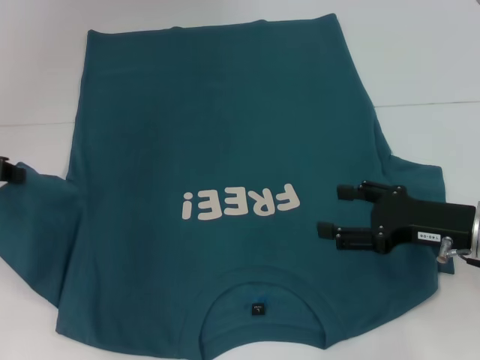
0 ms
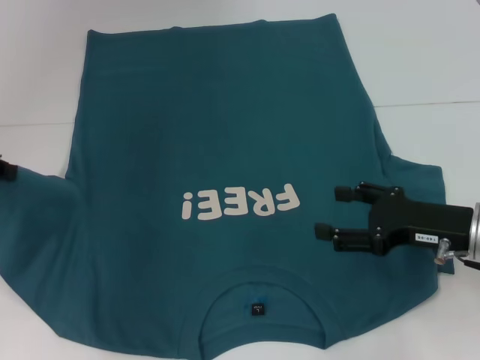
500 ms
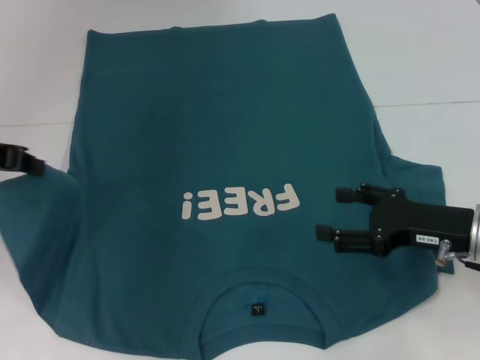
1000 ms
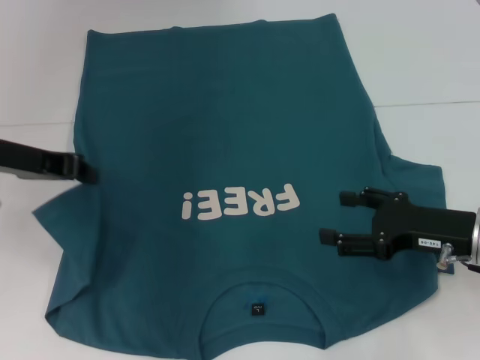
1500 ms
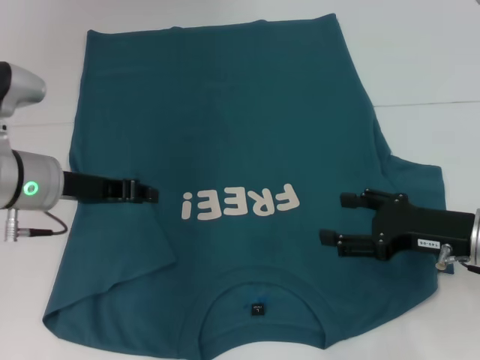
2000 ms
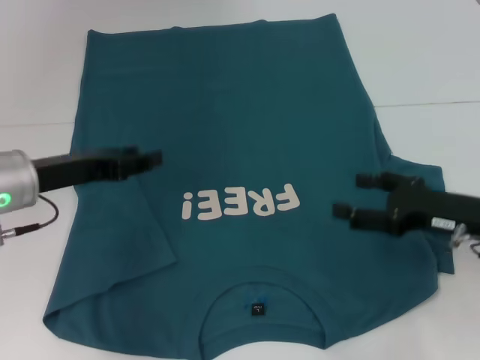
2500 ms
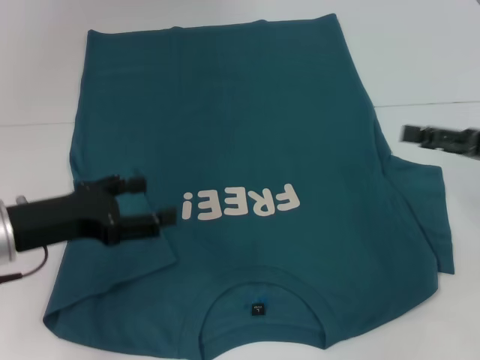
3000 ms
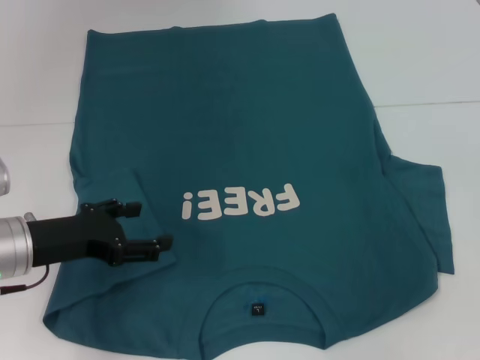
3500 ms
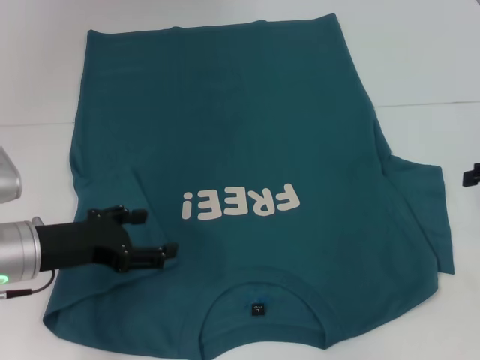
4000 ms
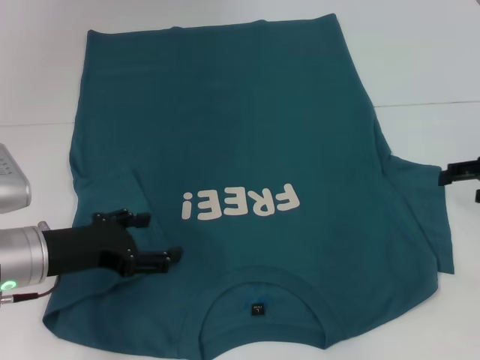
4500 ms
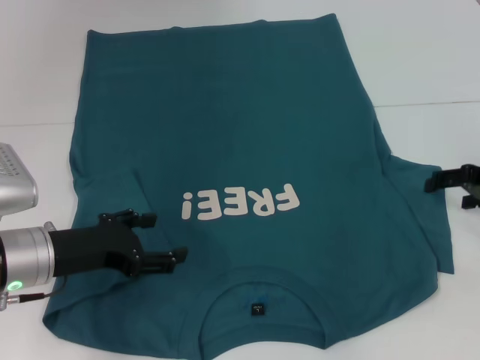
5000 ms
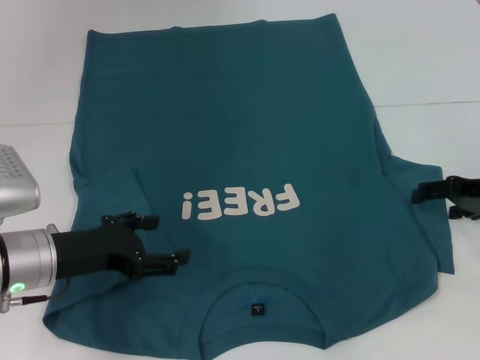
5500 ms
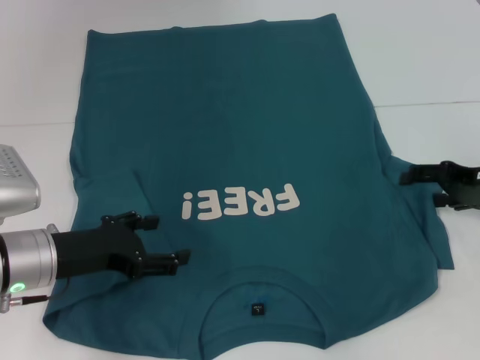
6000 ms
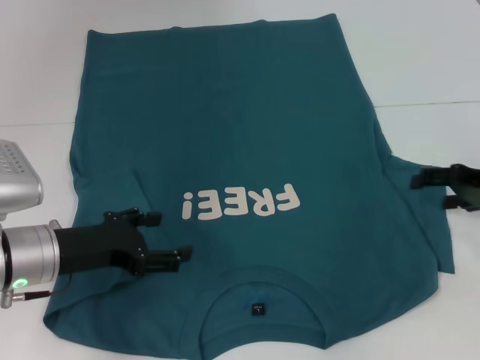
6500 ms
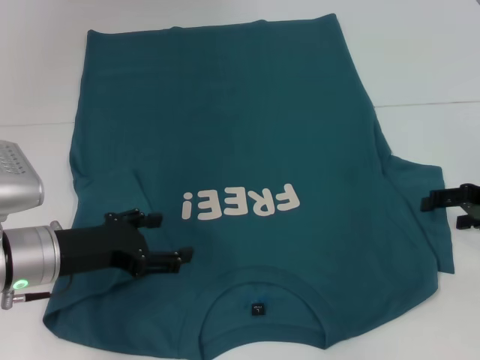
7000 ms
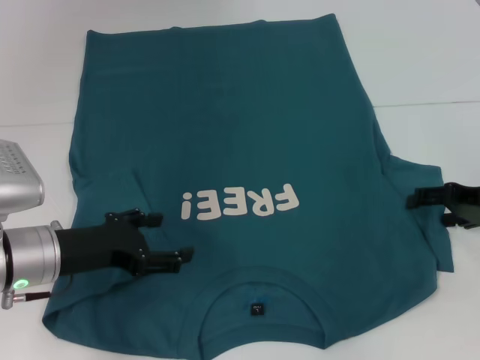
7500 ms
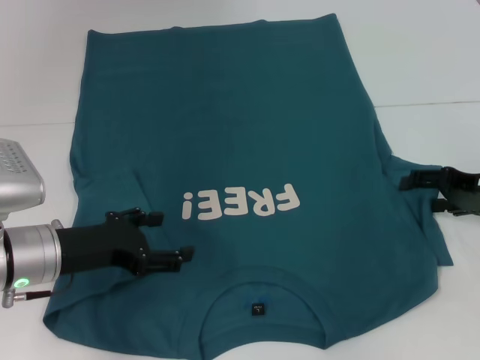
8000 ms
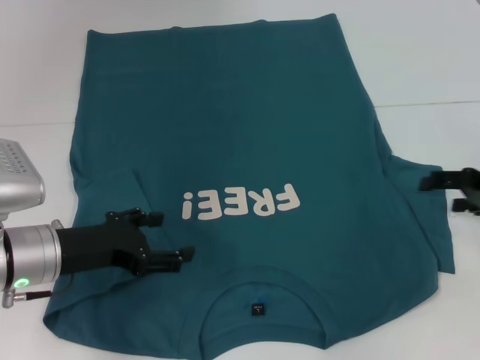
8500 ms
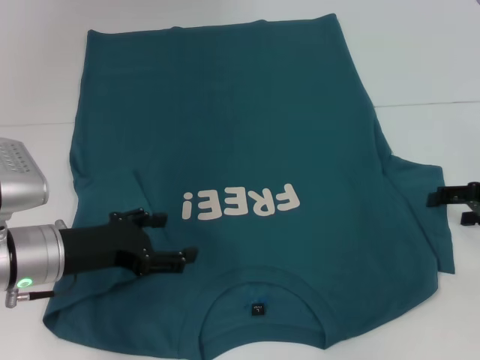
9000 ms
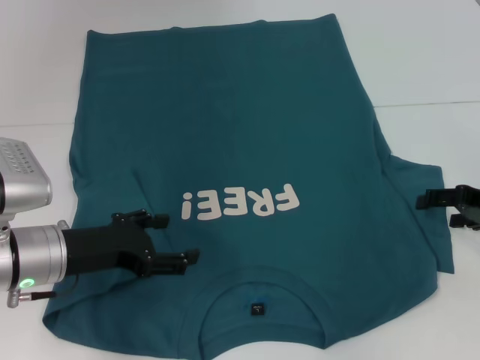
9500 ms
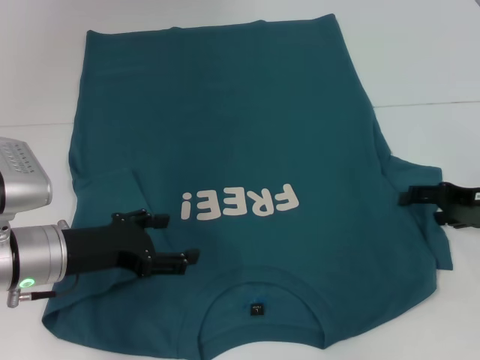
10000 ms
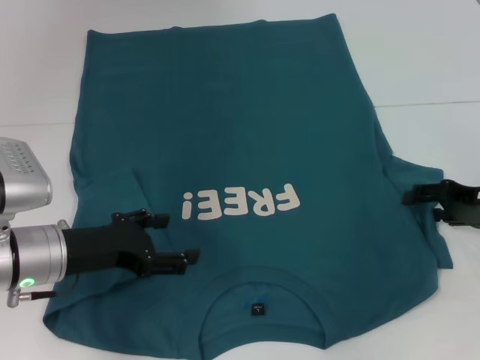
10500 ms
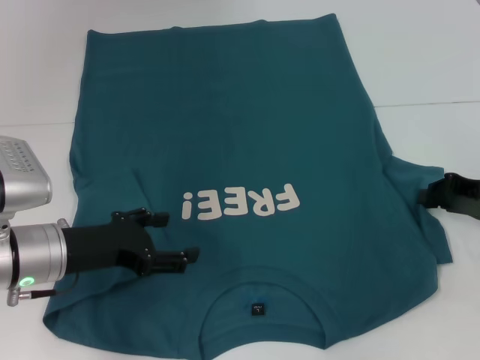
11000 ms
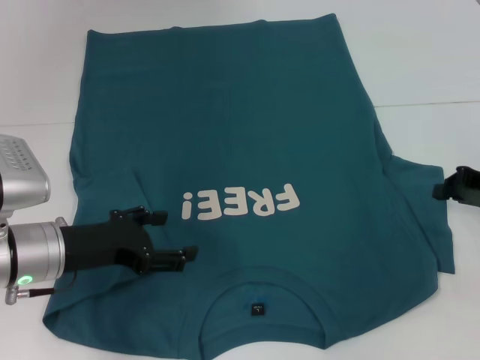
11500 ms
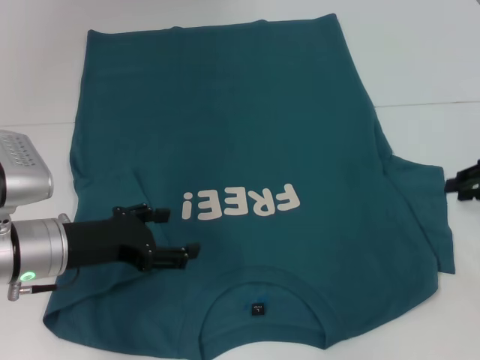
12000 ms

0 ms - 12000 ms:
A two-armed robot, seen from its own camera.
Step, 0 ms - 2000 ms: Fold the bottom left sleeve with your left hand.
0 ms - 2000 ms: The left gripper is displaced to the right and downward by some 10 cm.
2000 ms - 4000 ms: The left gripper is displaced backward by roughly 5 cm, and opens its fingers. Meanwhile the right gripper goes approximately 15 cm to the right and upward.
4000 ms - 6000 ms: The right gripper heads downward and to the left, covering approximately 5 cm.
6000 ms - 10000 ms: The grippers make only small movements.
10000 ms - 12000 ms: The right gripper ends up roughly 5 cm from where it was, and closes up.

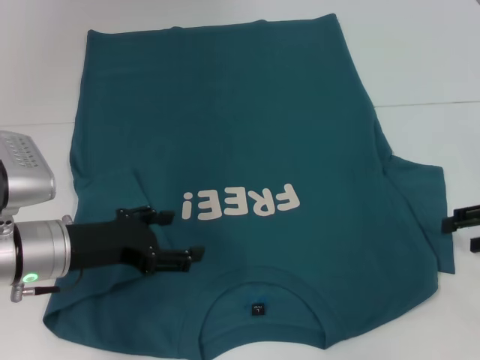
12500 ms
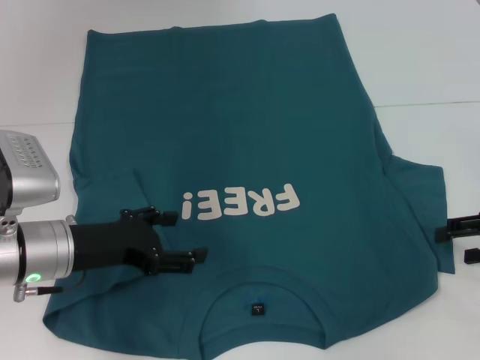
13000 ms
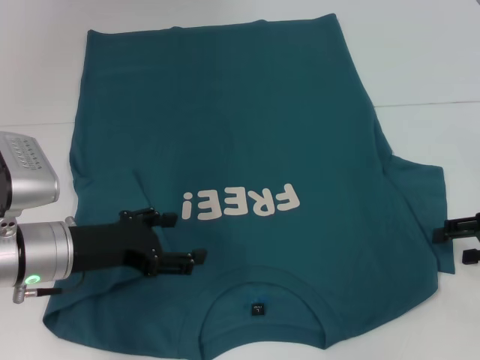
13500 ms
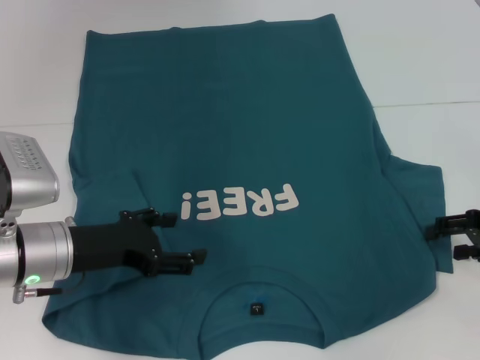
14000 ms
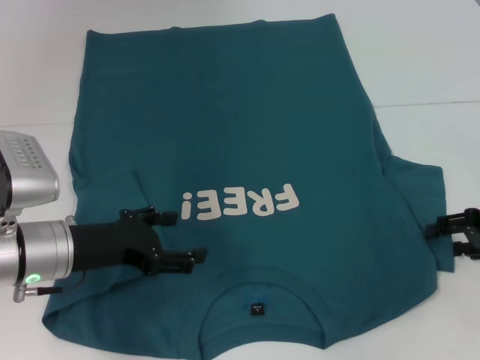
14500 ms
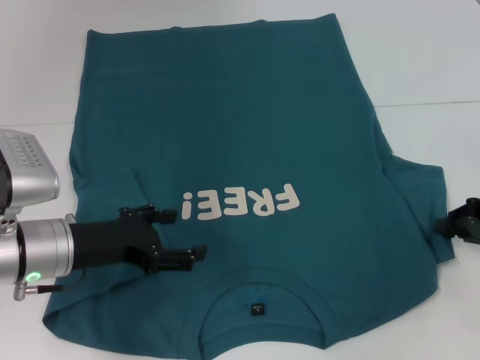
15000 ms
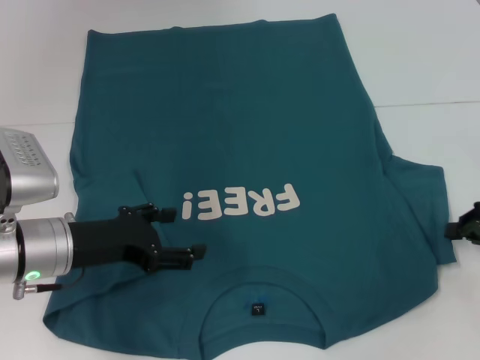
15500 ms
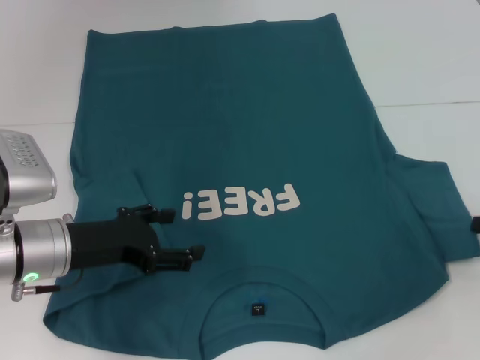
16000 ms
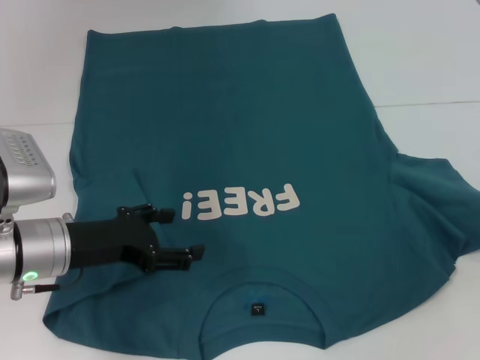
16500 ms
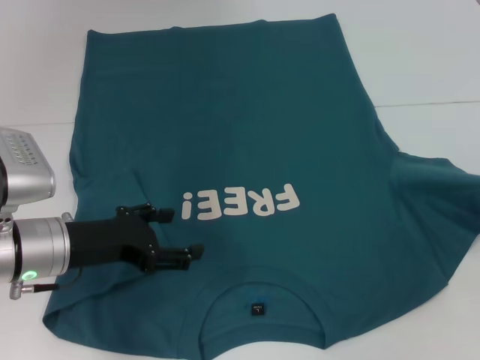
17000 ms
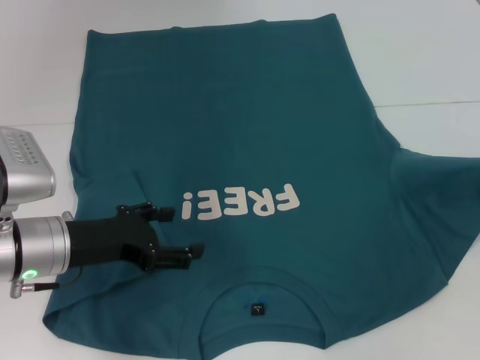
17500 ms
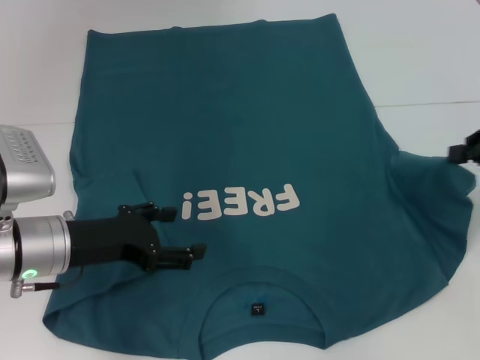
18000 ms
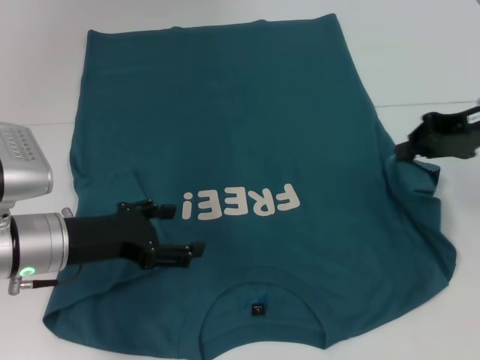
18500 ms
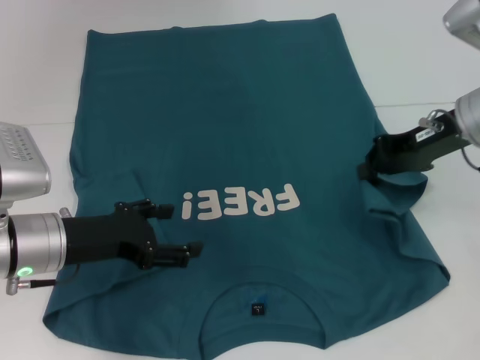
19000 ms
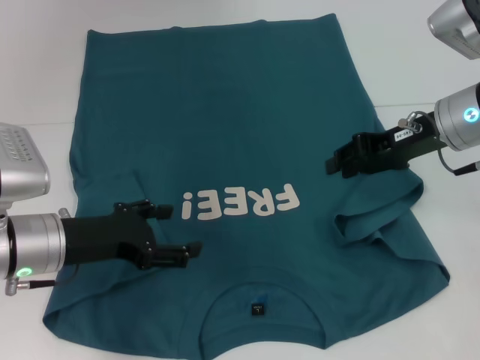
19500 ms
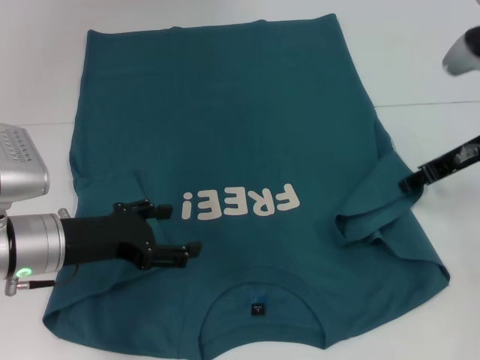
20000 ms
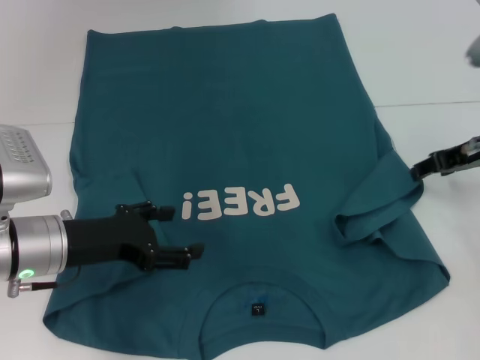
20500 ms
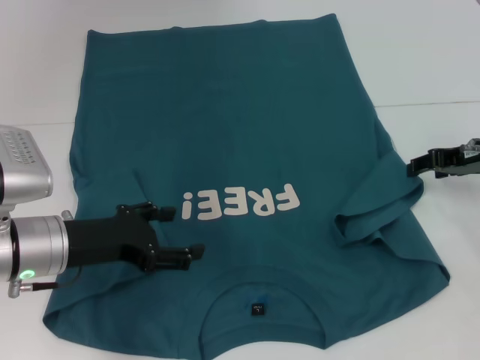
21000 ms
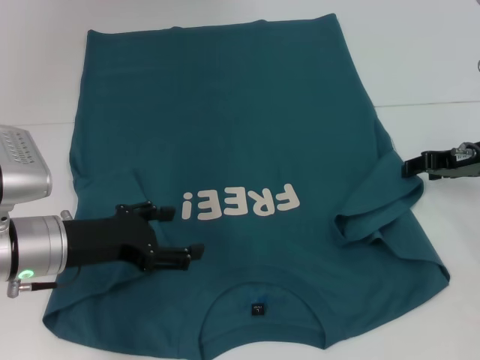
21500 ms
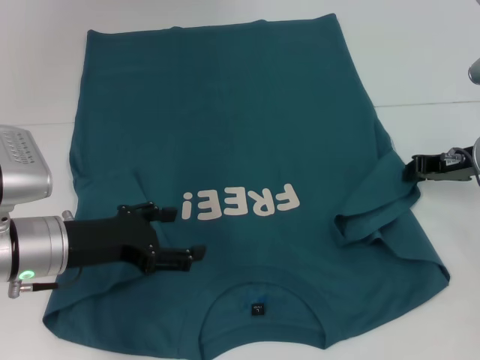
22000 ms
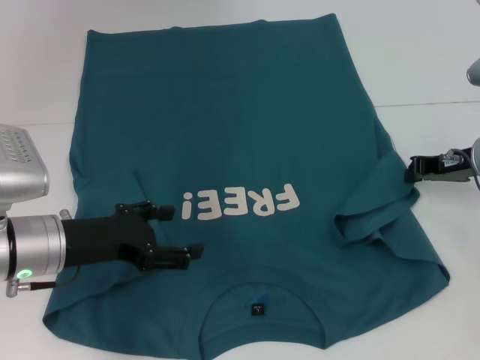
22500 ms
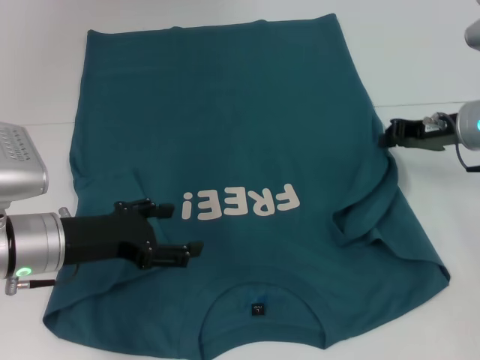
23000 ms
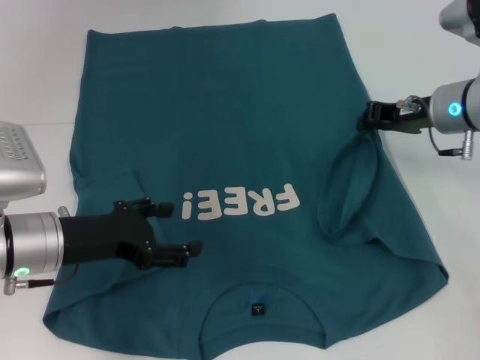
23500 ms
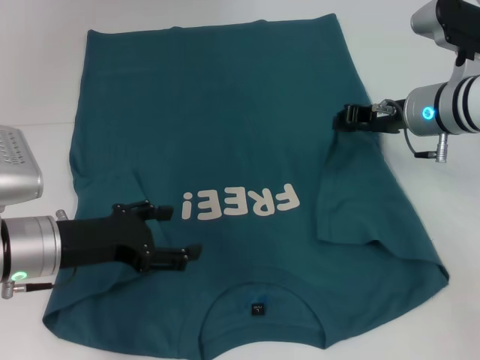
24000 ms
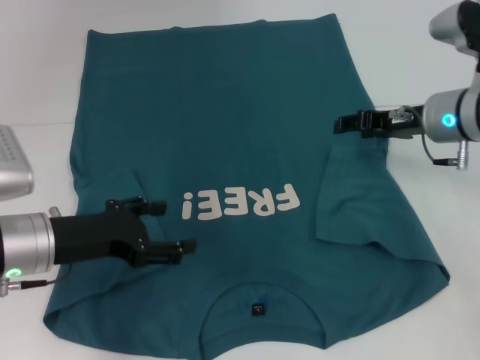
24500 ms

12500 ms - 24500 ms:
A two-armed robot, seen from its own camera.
Step, 12500 ms - 24000 ms: Fold the bottom right sleeve to the right.
12500 ms - 14500 ms: The grippers stay close to where they were, moving slightly.
14500 ms - 16500 ms: The right gripper goes about 5 cm to the right, and closes its fingers.
16500 ms - 18500 ms: The right gripper goes about 15 cm to the left, upward and forward.
18500 ms - 20500 ms: The right gripper opens up.
20500 ms - 22500 ms: The right gripper closes up.
22500 ms - 24500 ms: The right gripper goes approximately 5 cm to the left, and opens its fingers.

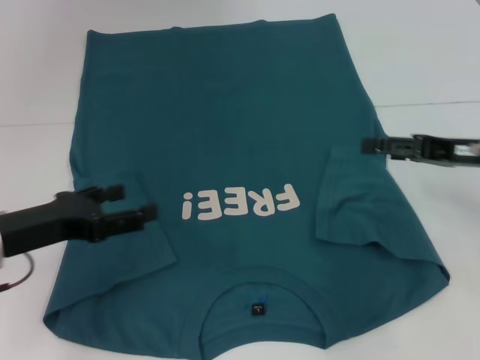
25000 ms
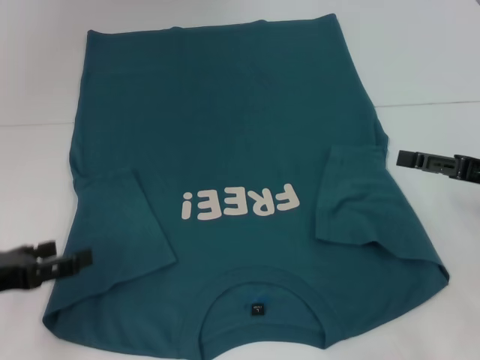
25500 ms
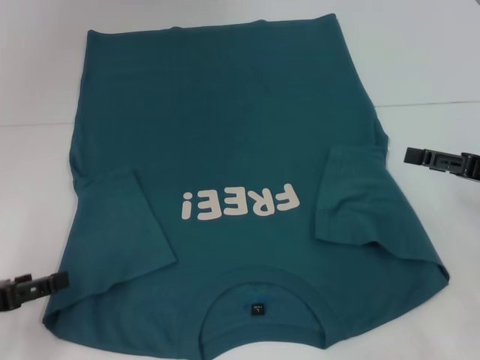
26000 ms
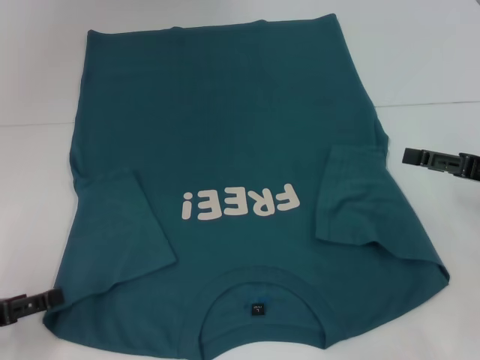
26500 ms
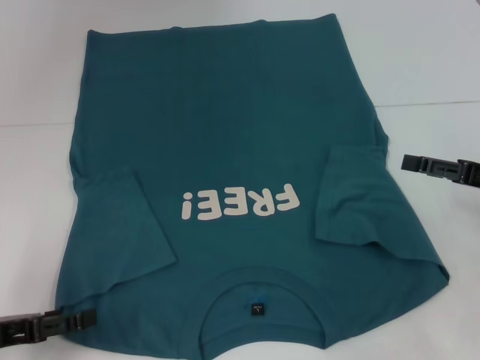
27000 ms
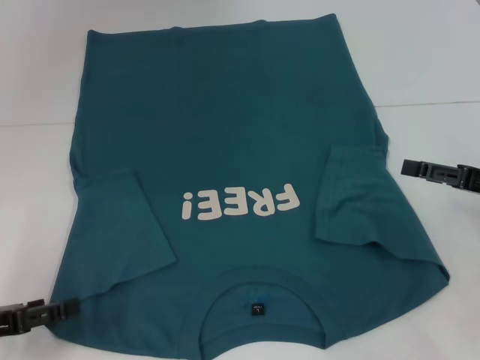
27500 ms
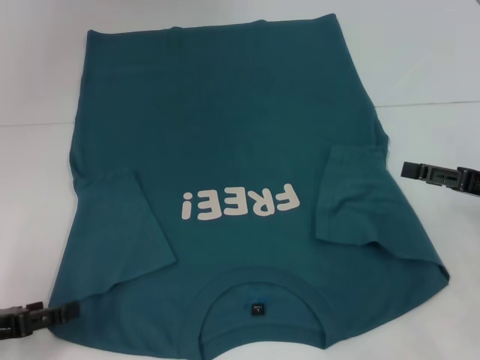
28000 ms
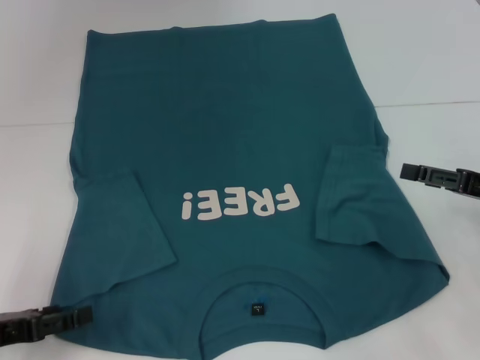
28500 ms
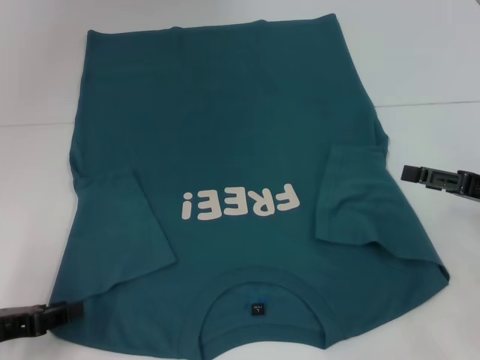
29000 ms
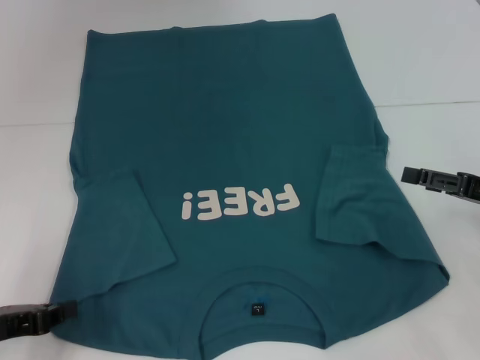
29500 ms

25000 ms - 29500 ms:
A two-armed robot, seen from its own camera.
25000 ms - 27000 ms: The right gripper moves roughly 5 cm. The left gripper is displaced backward and to the left by about 10 cm.
27000 ms - 29500 ms: The left gripper closes.
